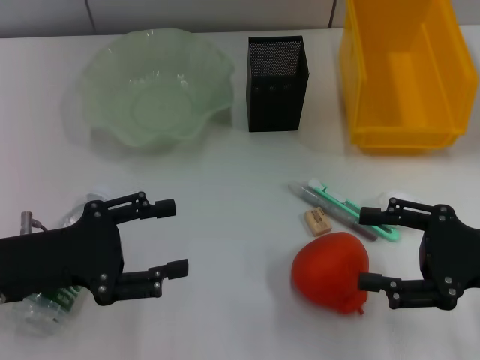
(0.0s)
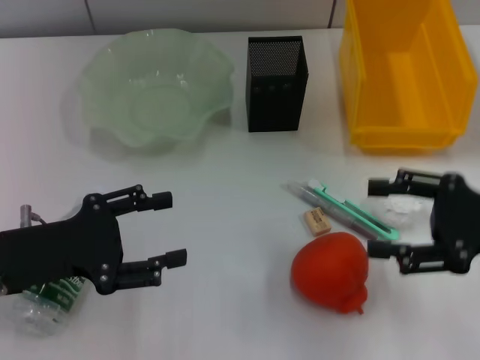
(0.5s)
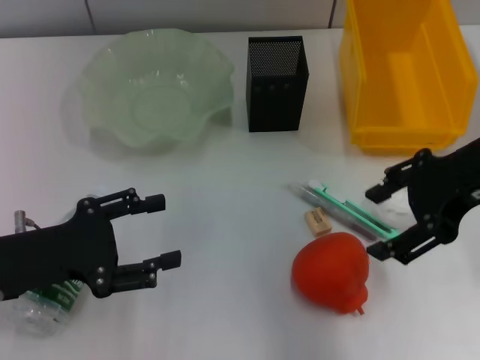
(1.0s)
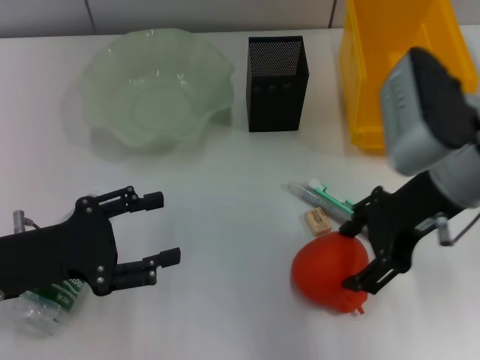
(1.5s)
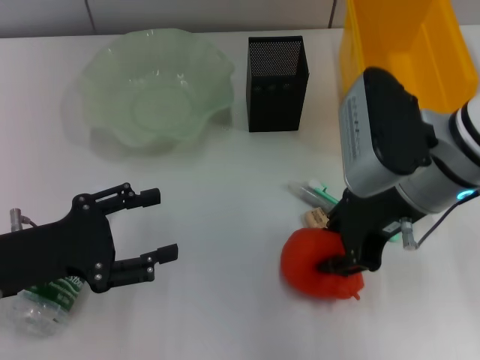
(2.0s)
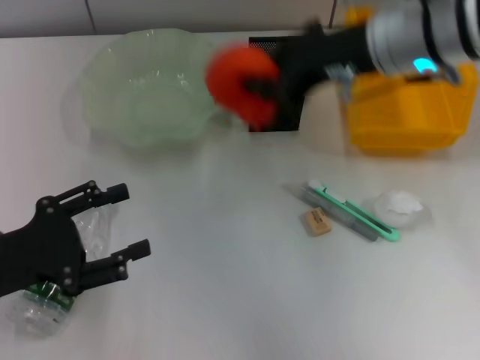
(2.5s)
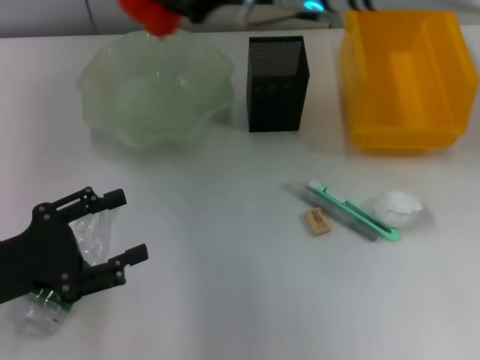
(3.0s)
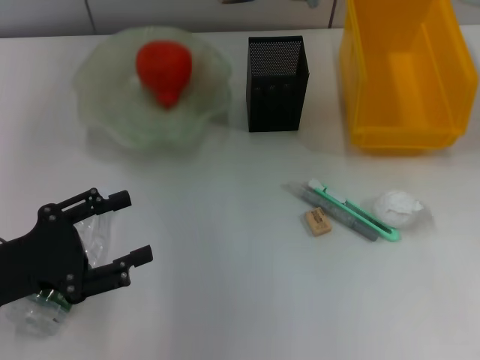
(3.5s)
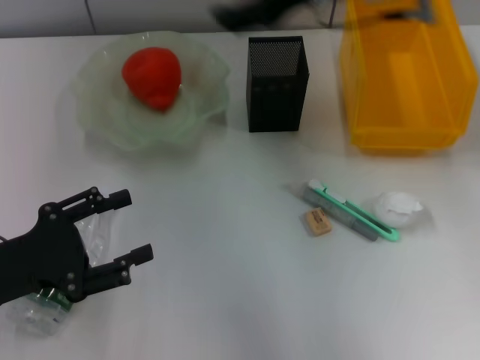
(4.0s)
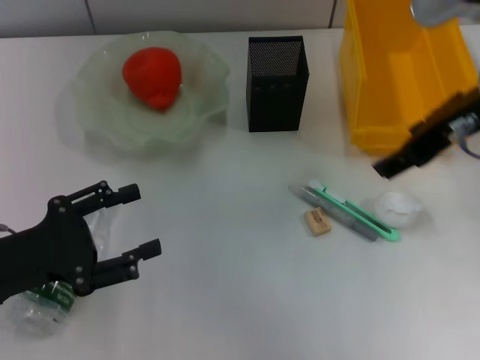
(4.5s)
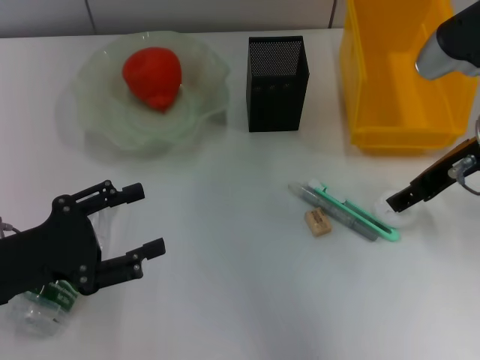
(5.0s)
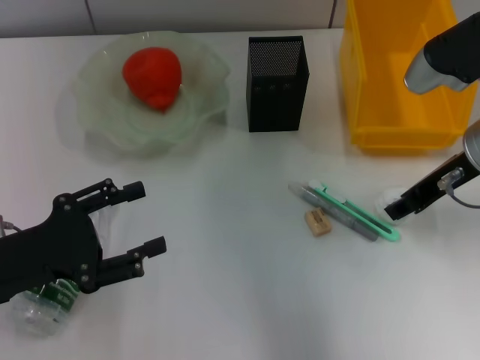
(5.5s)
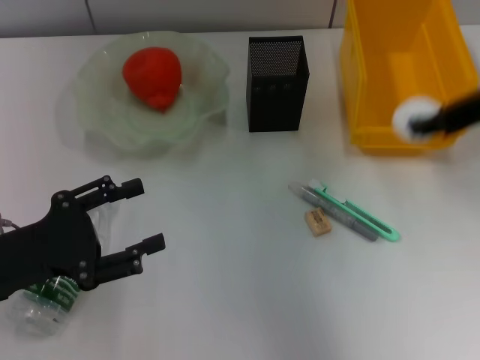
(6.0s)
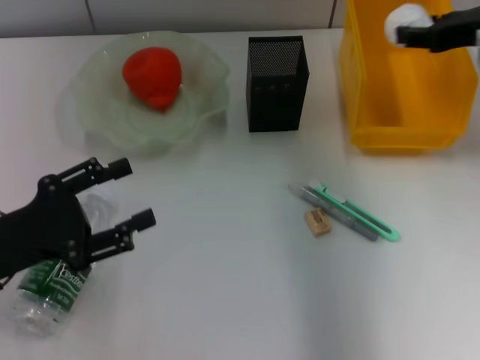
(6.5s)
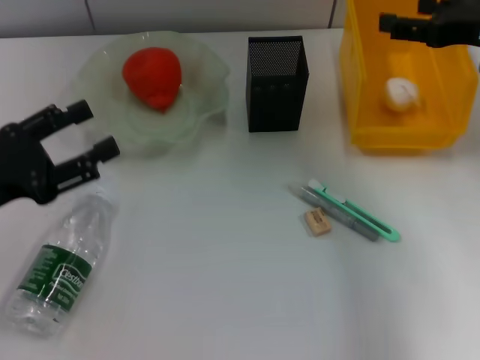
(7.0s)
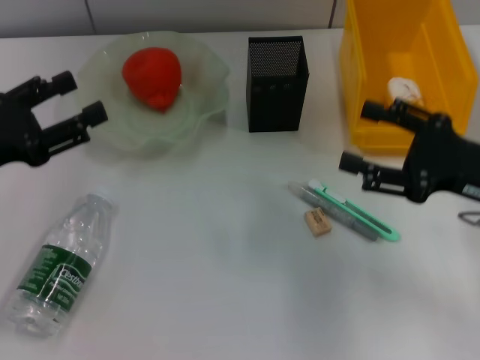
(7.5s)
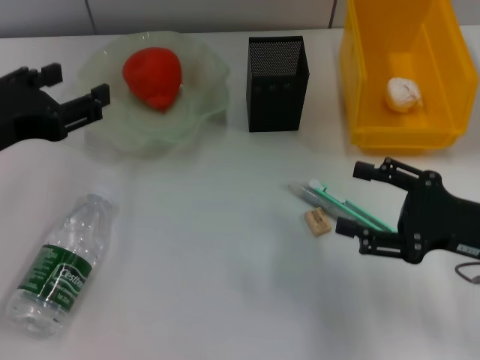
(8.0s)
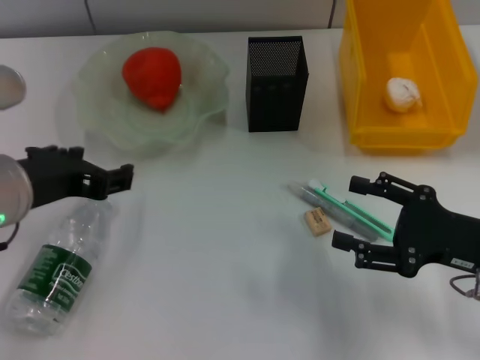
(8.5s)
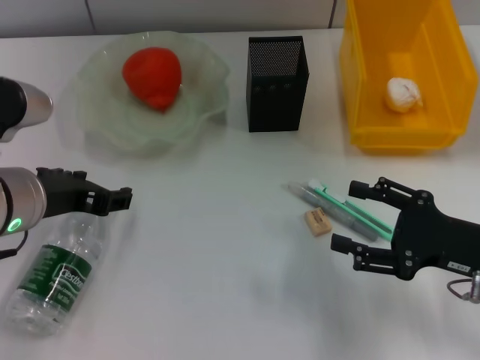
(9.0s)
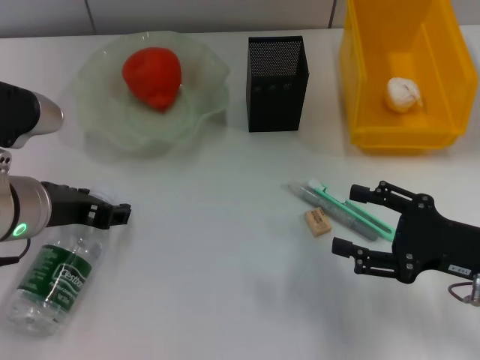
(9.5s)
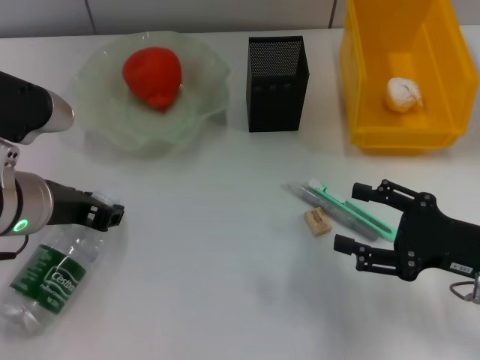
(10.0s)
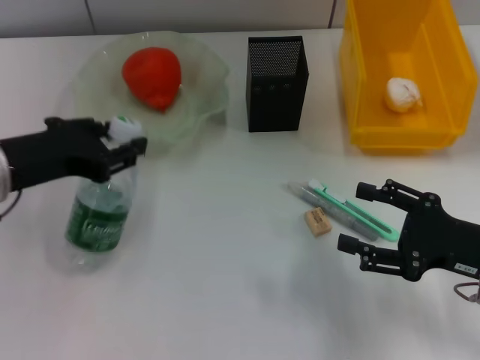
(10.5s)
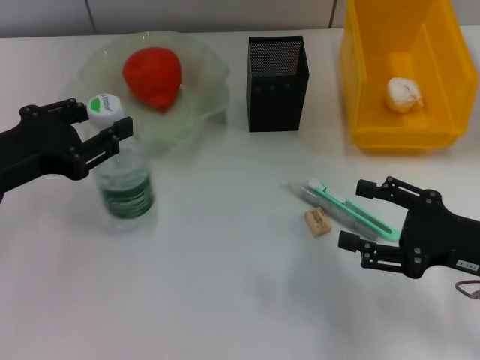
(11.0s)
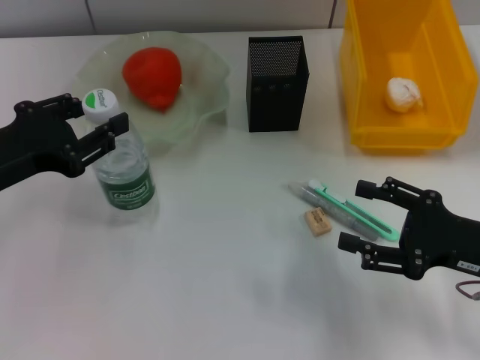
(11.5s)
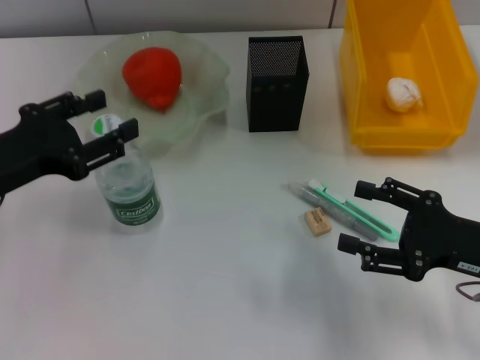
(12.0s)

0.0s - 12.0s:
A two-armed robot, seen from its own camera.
Step, 0.0s - 1.5s: Grab the orange with the right hand.
Step, 2.0s - 3.0s: Place the orange into the fruit bowl with the right hand.
Step, 4.0s - 5.5s: Grab the paper ball with the right hand.
Step, 6.0s - 6.5s: Place the paper ball into the trash can with the right hand.
Step, 7.0s - 9.5s: Grab the water bottle with the left hand.
Step, 10.0s - 11.5s: Place the water bottle on the table with the left hand.
0.0s - 2.0s: The right gripper is displaced to the left, forward and upward by approximately 20 cm.
2.0s - 4.0s: The right gripper shifts about 15 cm upward and forward, and closes, then reopens.
4.0s - 6.0s: The right gripper is displaced to the right and backward by about 15 cm, and closes its fingers.
6.0s - 8.0s: The left gripper goes approximately 10 cm upward. The right gripper travels downward and backward by some 15 cm, and opens up.
8.0s - 10.0s: The left gripper heads downward and to the right, covering about 10 cm, and closes its fingers.
10.0s - 12.0s: The left gripper moves to the left, about 5 cm.

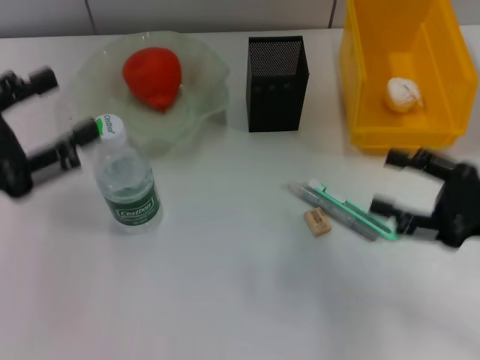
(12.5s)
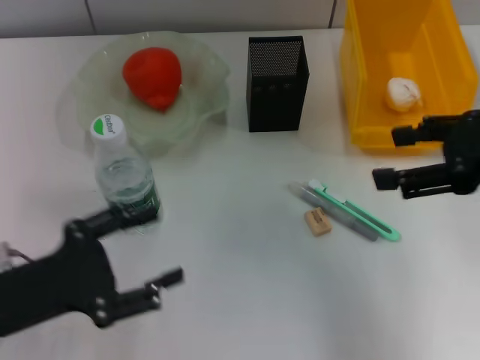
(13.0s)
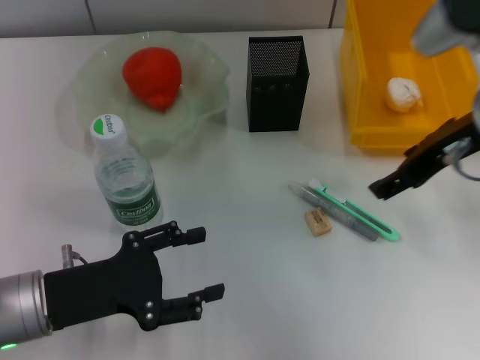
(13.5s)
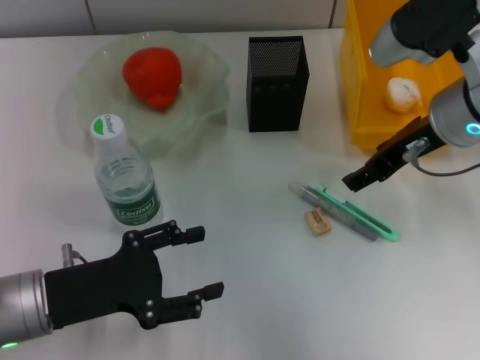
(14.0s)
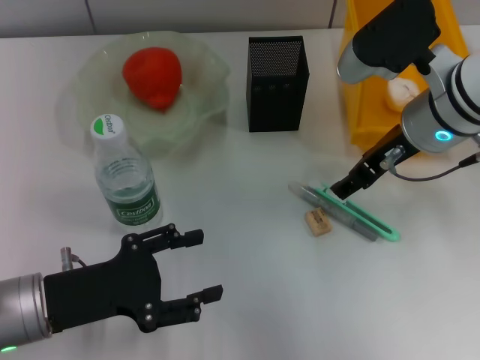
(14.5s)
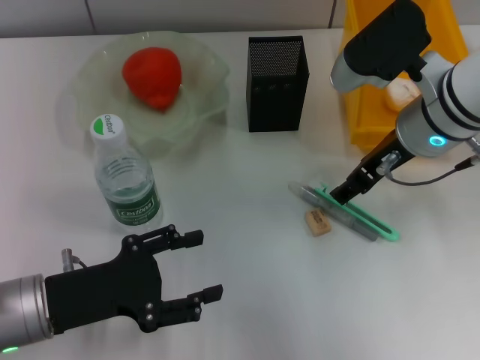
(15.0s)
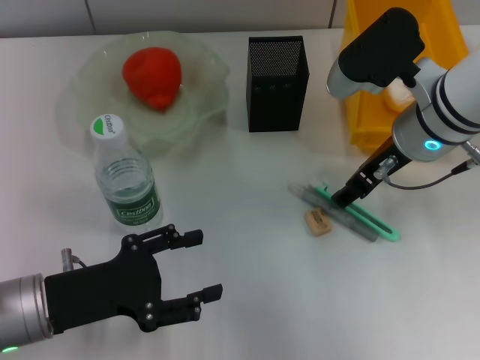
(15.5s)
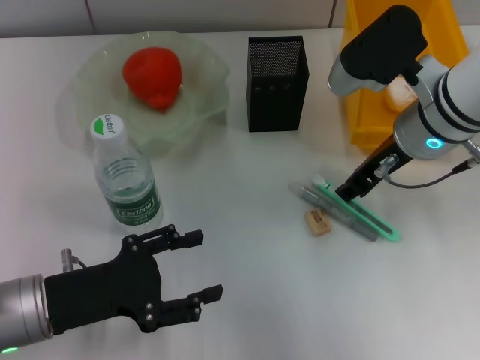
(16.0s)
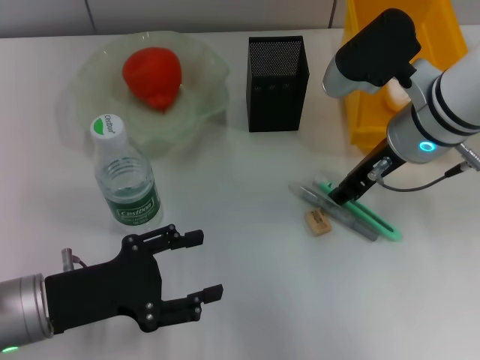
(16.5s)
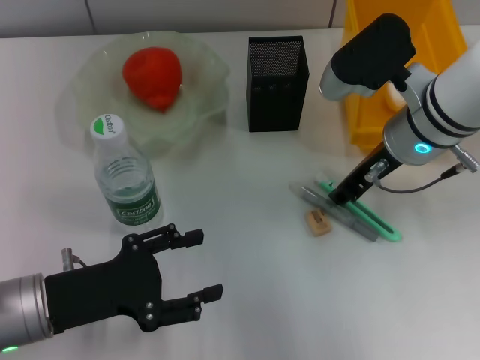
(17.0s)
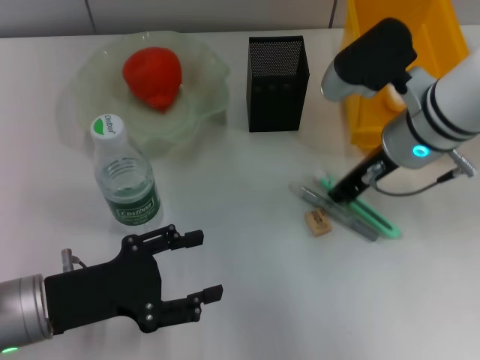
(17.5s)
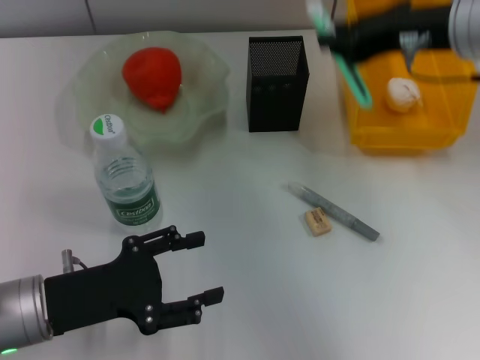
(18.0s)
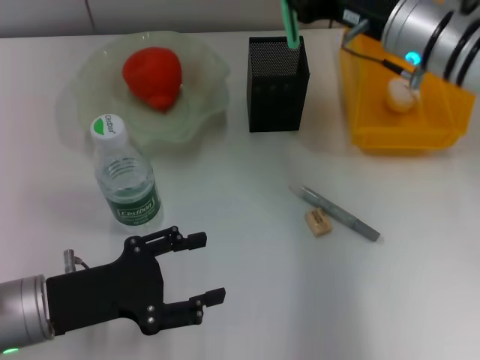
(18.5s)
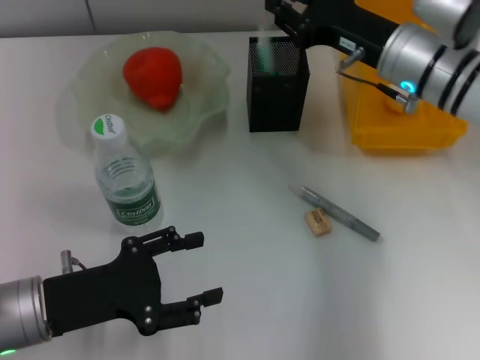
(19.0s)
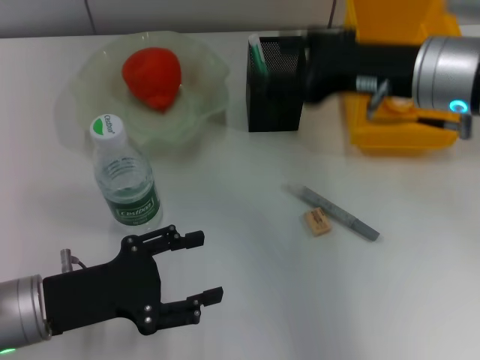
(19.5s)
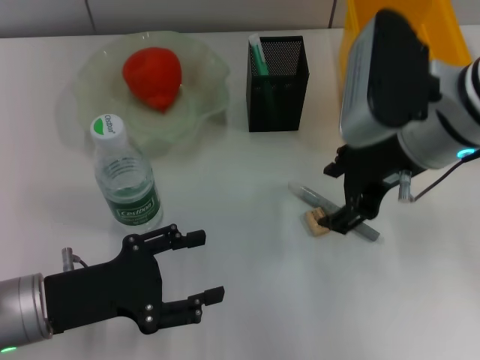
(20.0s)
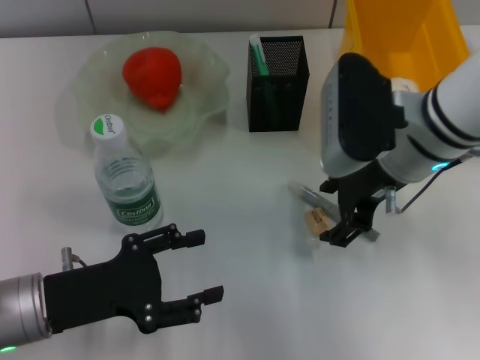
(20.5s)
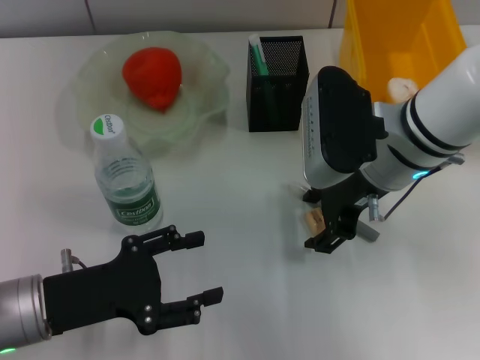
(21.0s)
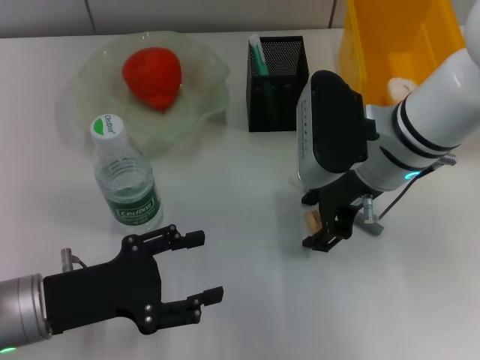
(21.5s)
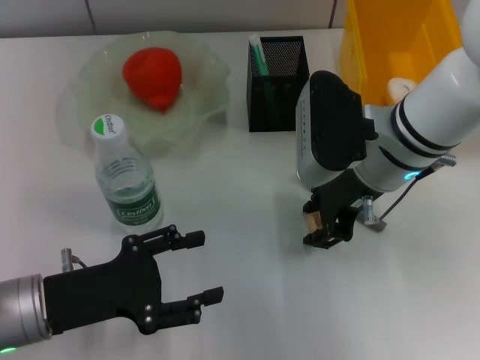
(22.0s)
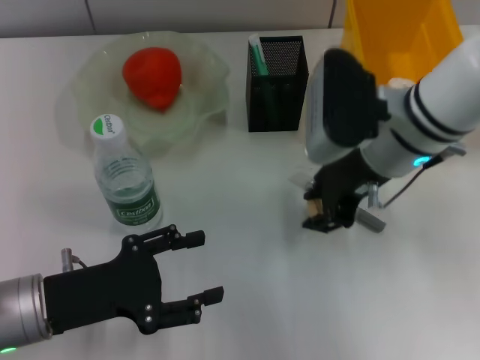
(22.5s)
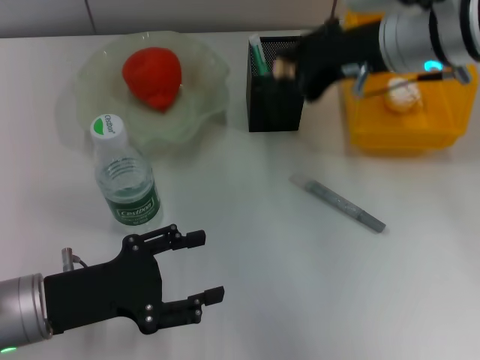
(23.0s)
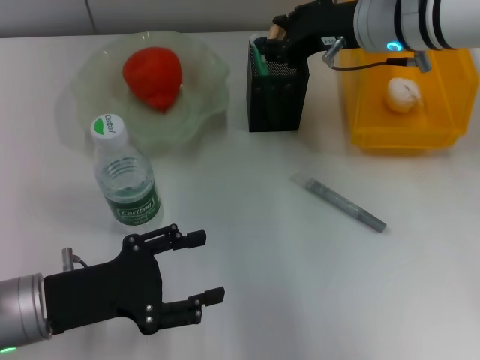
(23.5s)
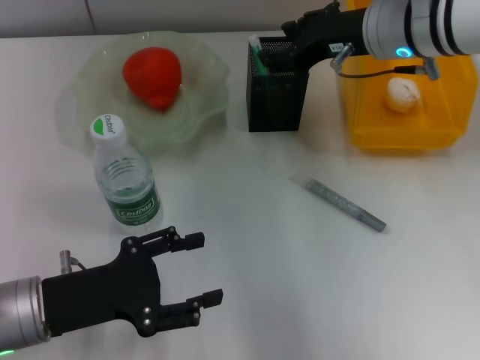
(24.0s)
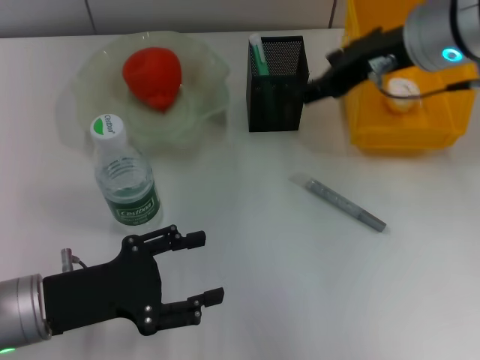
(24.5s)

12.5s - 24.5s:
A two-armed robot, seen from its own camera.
Step, 12.5s - 17.0s: Grab the blue utility knife with the right hand.
Step, 17.5s - 19.0s: Place the blue utility knife into the pen holder with the right hand.
Step, 19.5s - 22.0s: Grab the eraser with the right hand.
Step, 22.5s - 23.5s: Put the eraser into the pen holder with the right hand.
12.5s - 14.5s: The left gripper goes approximately 15 cm downward and to the right; the right gripper travels to the left, forward and upward by some 20 cm.
14.5s - 16.5s: The right gripper closes up.
16.5s - 18.5s: The right gripper goes roughly 5 cm forward, goes upward and returns, about 10 cm each way, and closes its fingers.
18.5s - 20.5s: The right gripper heads backward, covering roughly 5 cm, and opens.
20.5s - 22.5s: The right gripper closes up.
22.5s - 24.5s: The right gripper heads upward, covering some 10 cm, and opens its fingers.

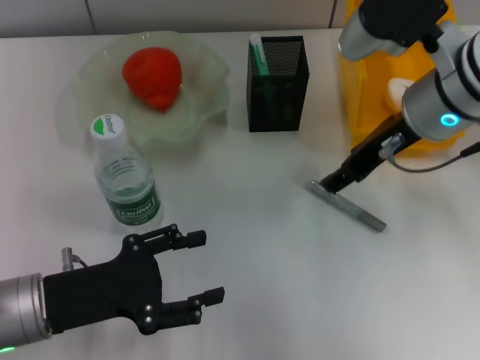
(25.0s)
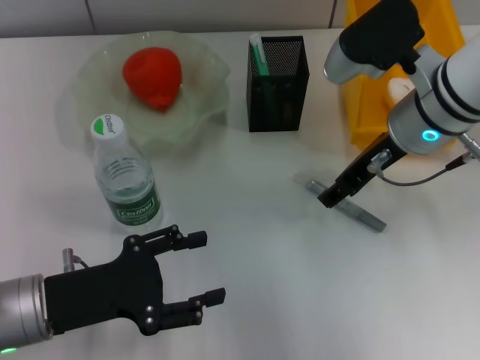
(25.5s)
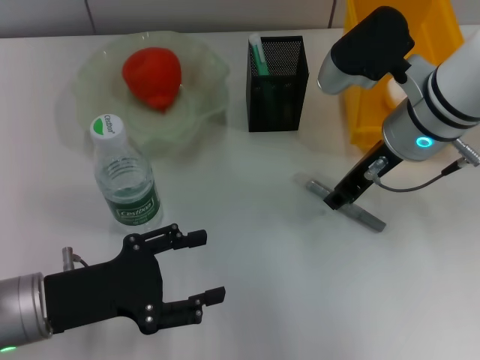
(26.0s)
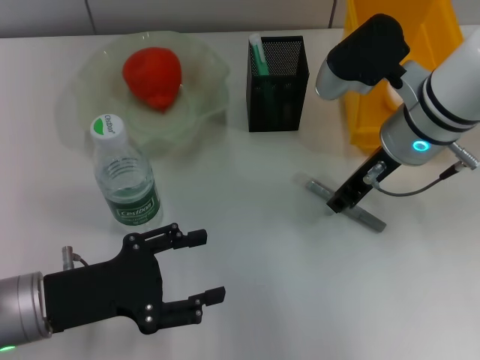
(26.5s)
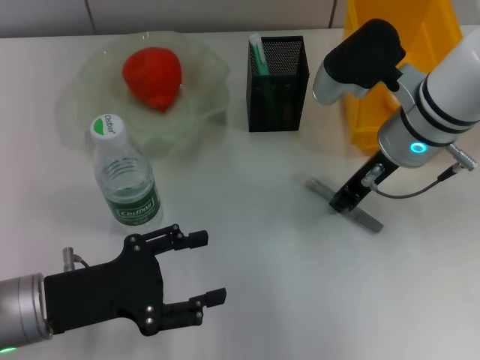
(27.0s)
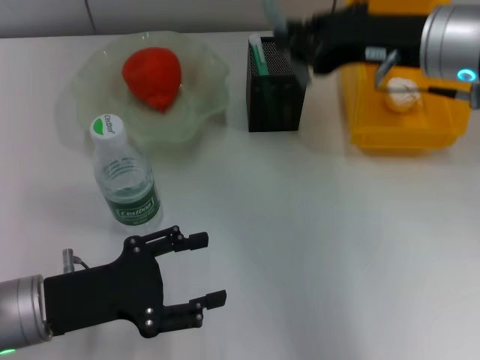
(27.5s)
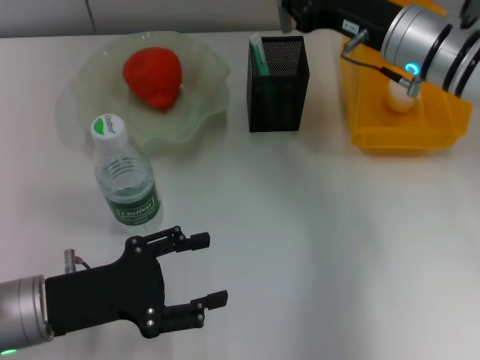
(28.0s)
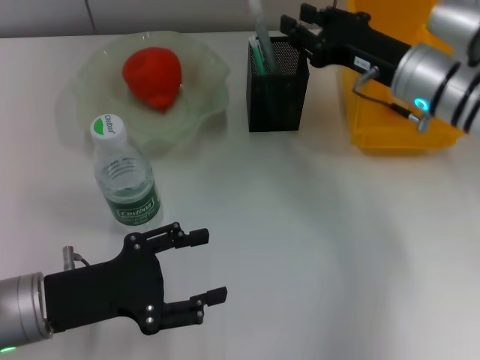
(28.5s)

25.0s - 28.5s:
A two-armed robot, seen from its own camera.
Step, 25.0s - 26.5s: Grab the gray glue with the right hand.
Step, 27.0s - 28.5s: Place the gray glue into the pen holder with the right hand.
25.0s - 27.0s: The right gripper closes its fingers.
27.0s - 28.5s: The right gripper moves about 5 cm upward and comes back.
